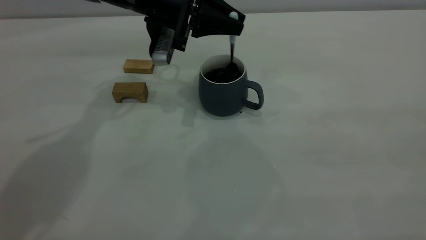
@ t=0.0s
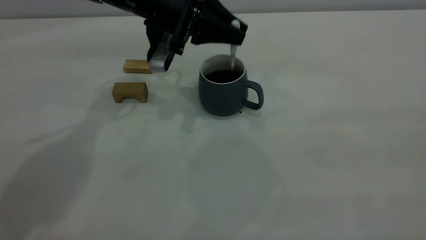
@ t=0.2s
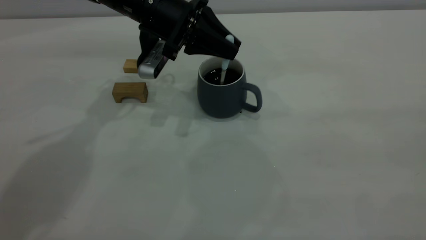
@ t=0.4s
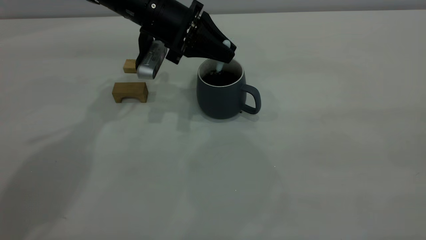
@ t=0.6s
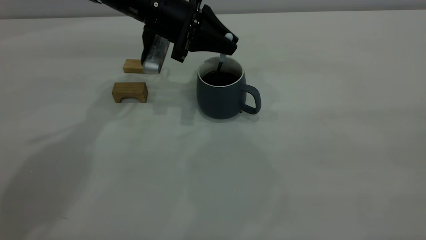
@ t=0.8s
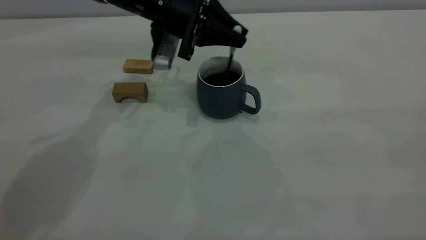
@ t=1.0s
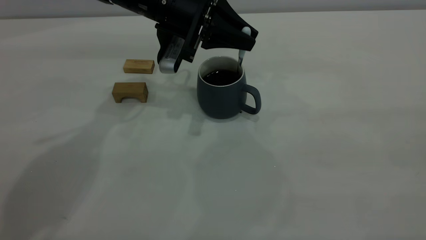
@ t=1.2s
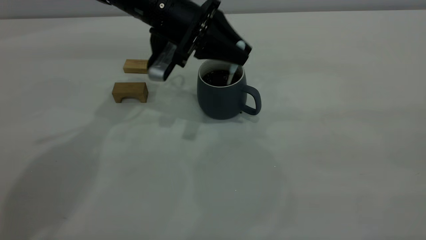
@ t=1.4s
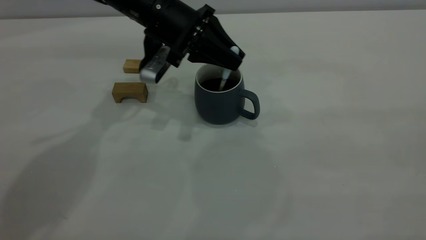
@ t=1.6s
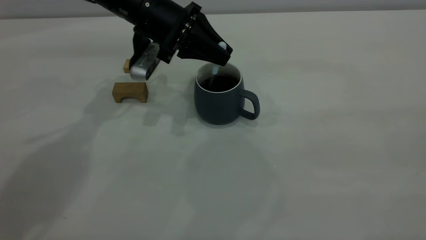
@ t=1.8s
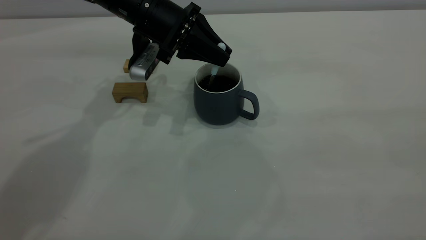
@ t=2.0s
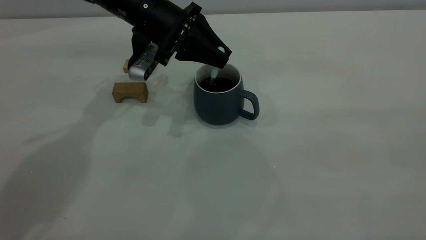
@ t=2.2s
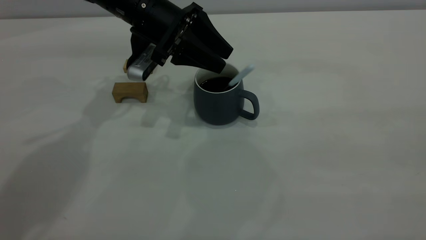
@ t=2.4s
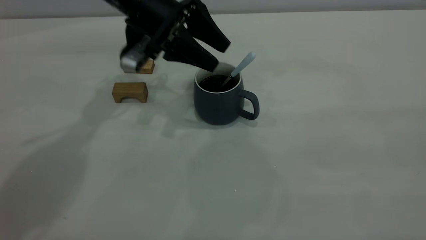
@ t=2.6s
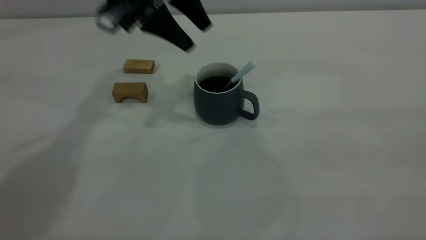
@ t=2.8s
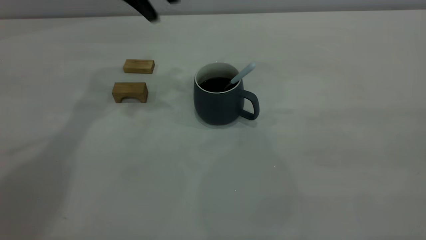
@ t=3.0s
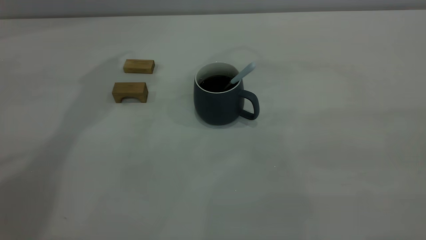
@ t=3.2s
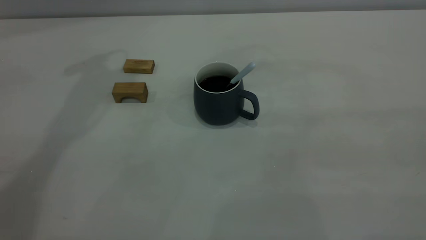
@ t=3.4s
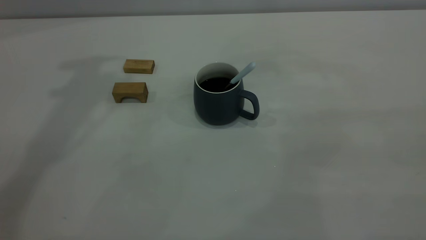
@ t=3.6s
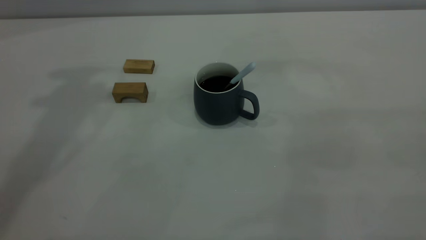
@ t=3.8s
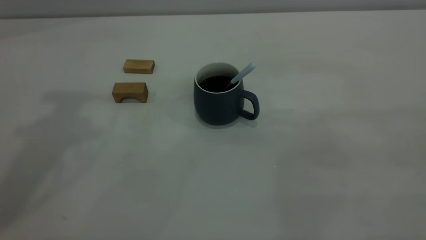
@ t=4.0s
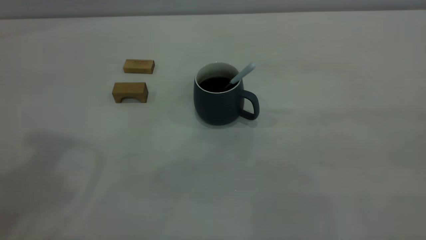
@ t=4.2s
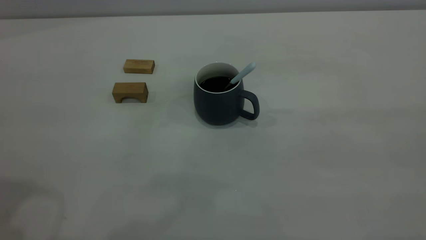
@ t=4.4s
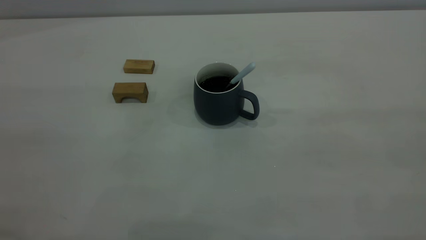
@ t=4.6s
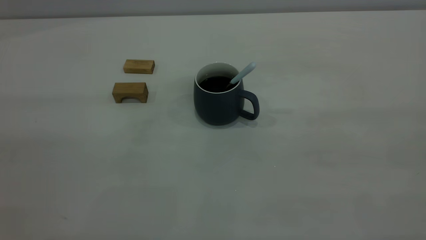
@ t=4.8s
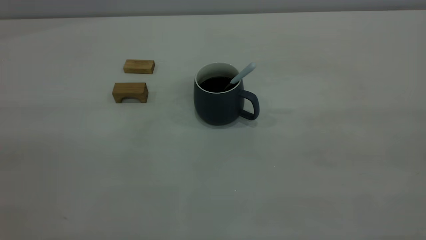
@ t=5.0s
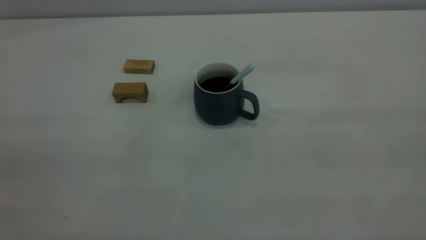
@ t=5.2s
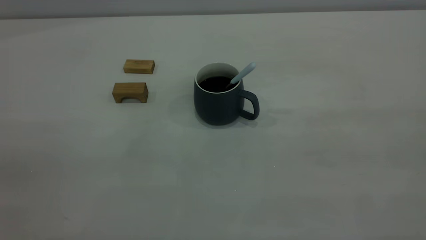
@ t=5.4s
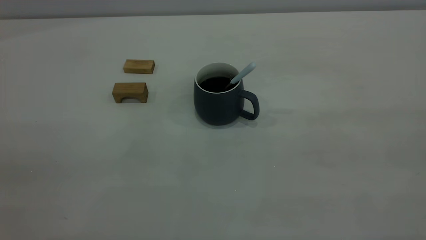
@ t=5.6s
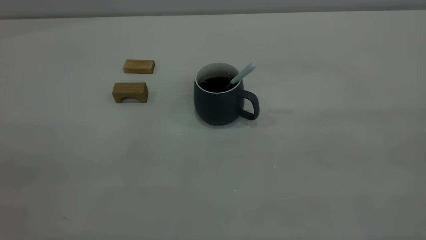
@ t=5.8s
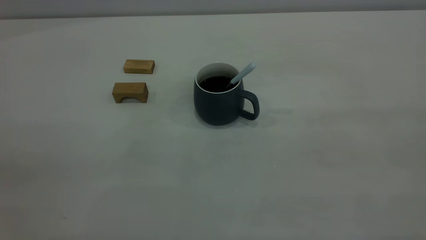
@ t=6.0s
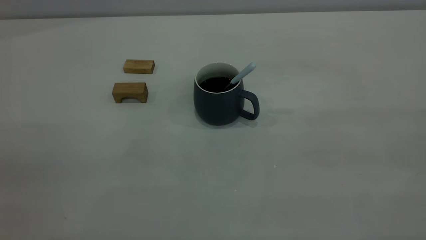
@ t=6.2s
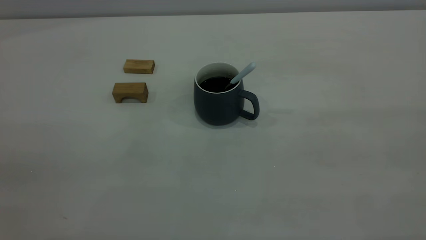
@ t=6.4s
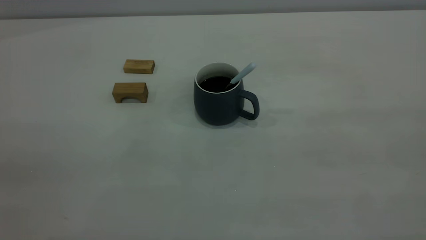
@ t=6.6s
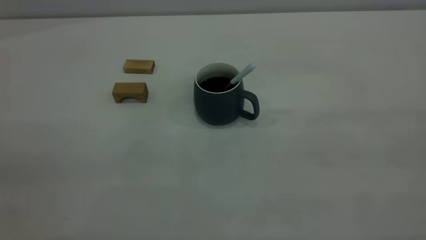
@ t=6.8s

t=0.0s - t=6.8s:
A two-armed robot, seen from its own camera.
Step, t=0.0s - t=2.6s: Stir the coffee in the cup.
t=0.0s - t=1.4s: There are only small adjustments of the grippers.
t=1.4s - t=2.8s: The left gripper travels upward by approximately 10 cm, and opens its fingers.
t=2.8s - t=4.0s: The left gripper moves upward, backward and to the left, roughly 25 cm.
t=5.4s - t=6.8s: Both grippers stay put.
